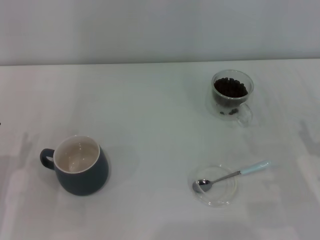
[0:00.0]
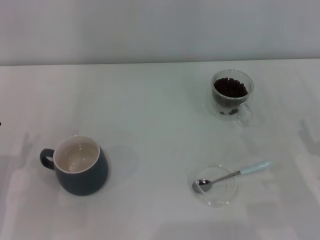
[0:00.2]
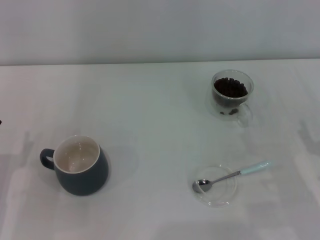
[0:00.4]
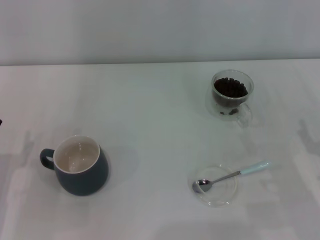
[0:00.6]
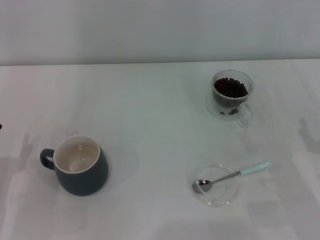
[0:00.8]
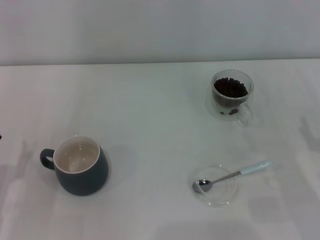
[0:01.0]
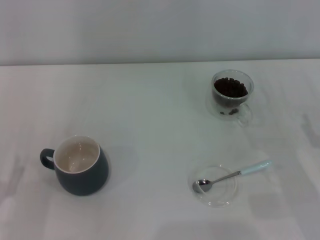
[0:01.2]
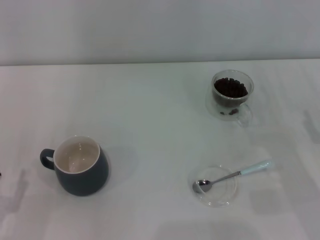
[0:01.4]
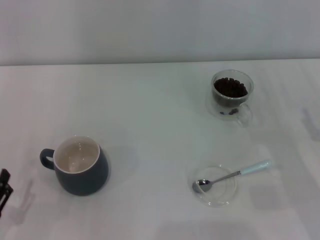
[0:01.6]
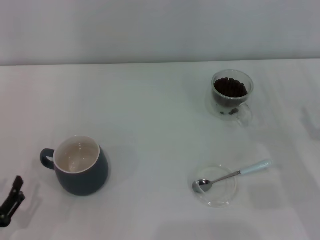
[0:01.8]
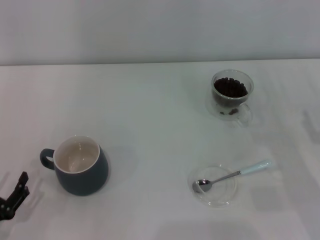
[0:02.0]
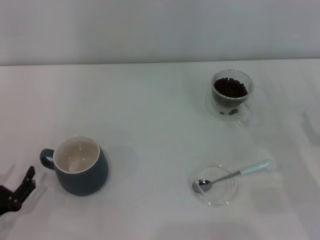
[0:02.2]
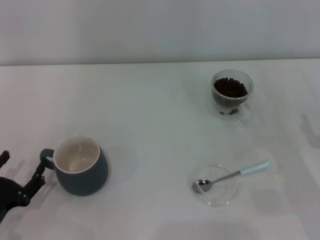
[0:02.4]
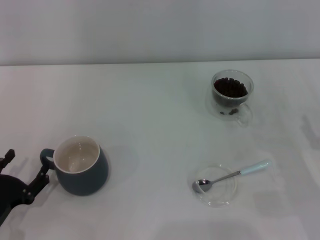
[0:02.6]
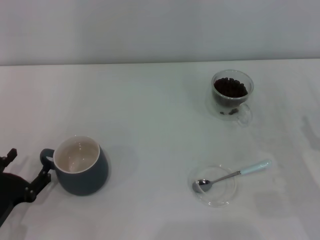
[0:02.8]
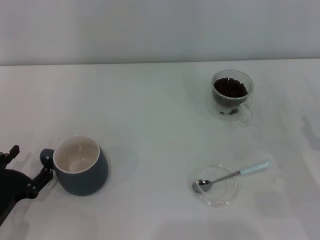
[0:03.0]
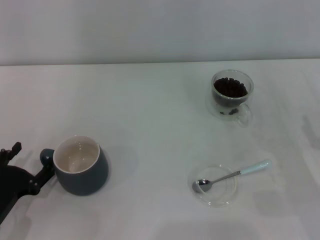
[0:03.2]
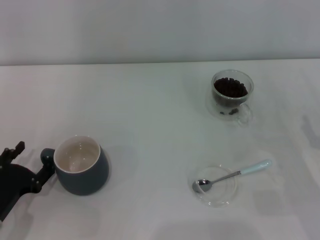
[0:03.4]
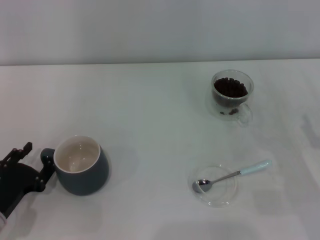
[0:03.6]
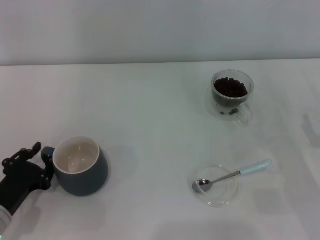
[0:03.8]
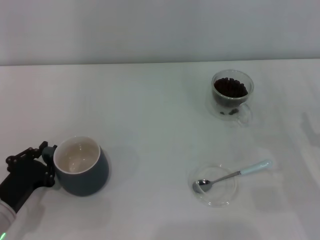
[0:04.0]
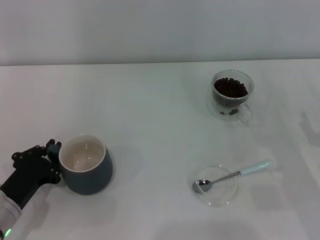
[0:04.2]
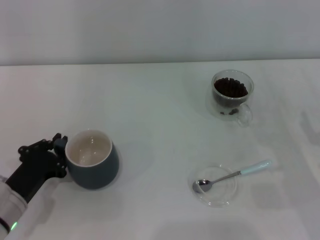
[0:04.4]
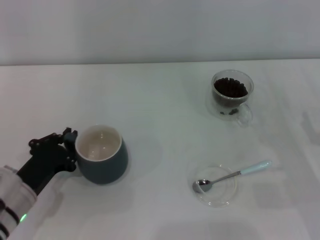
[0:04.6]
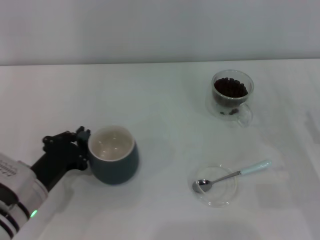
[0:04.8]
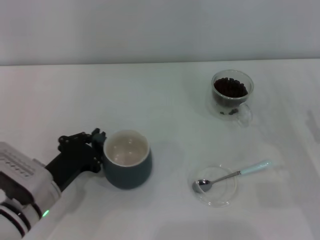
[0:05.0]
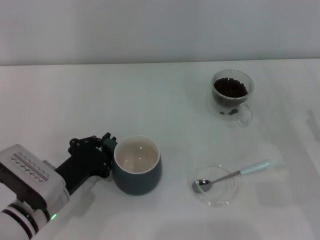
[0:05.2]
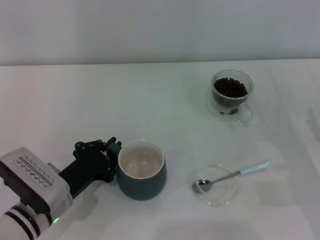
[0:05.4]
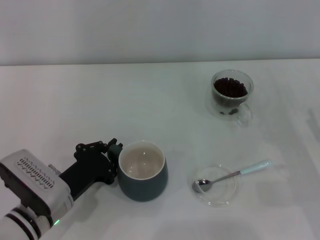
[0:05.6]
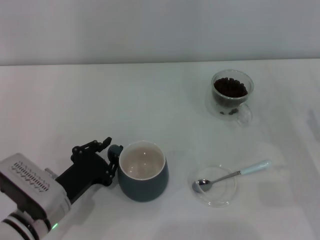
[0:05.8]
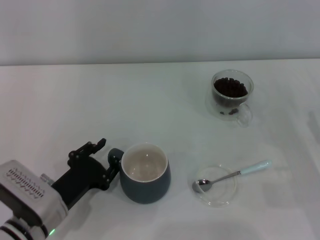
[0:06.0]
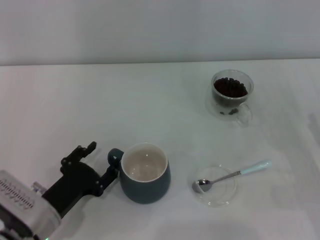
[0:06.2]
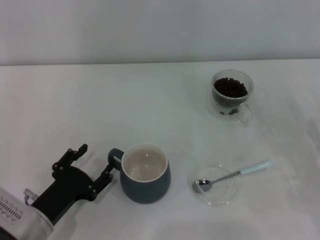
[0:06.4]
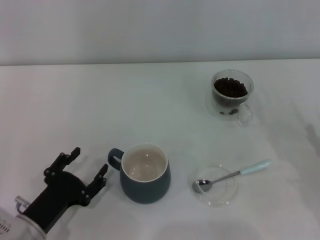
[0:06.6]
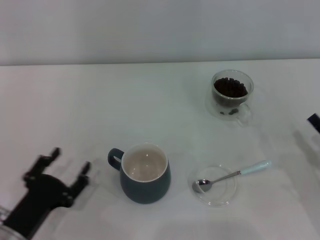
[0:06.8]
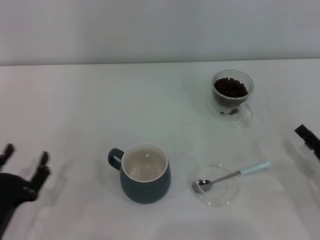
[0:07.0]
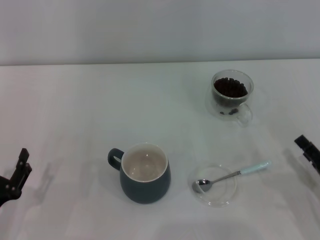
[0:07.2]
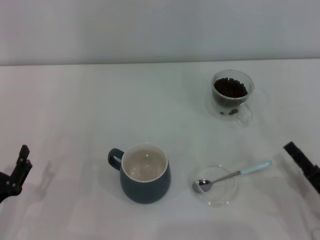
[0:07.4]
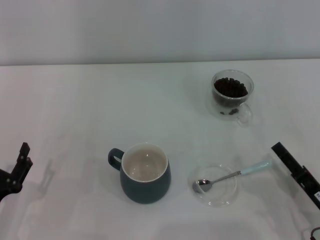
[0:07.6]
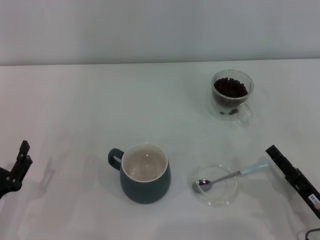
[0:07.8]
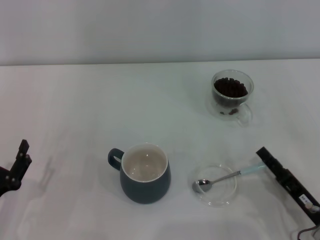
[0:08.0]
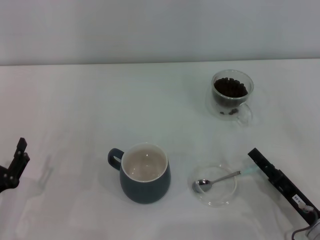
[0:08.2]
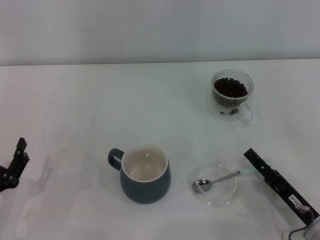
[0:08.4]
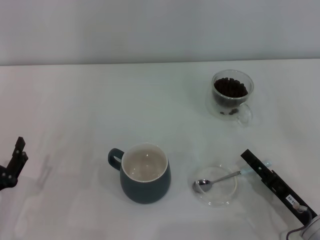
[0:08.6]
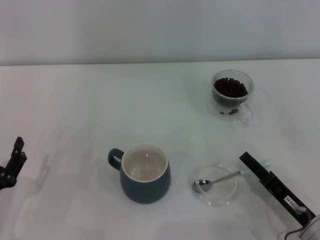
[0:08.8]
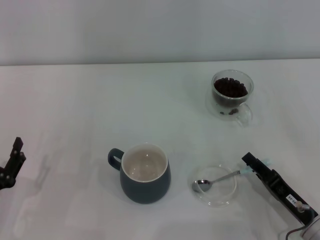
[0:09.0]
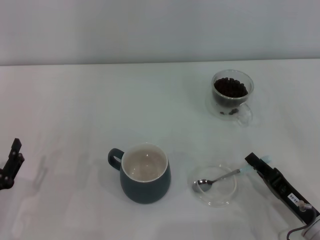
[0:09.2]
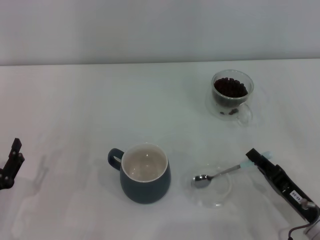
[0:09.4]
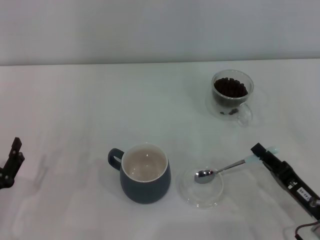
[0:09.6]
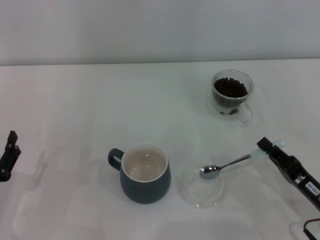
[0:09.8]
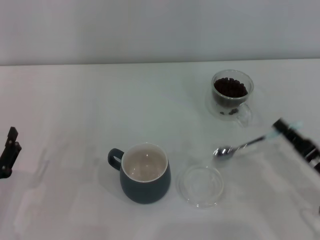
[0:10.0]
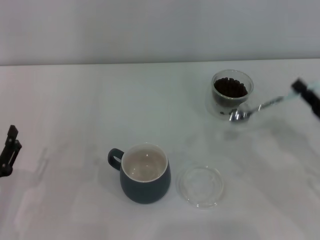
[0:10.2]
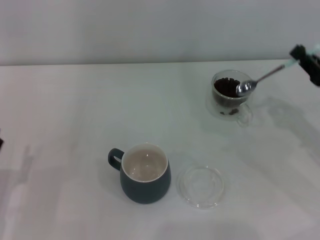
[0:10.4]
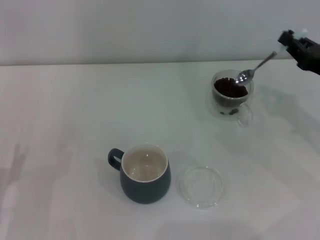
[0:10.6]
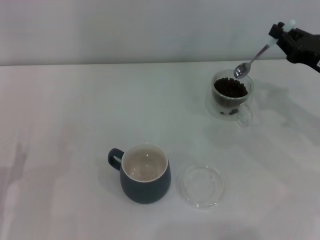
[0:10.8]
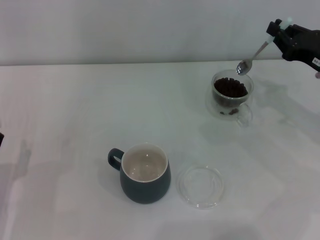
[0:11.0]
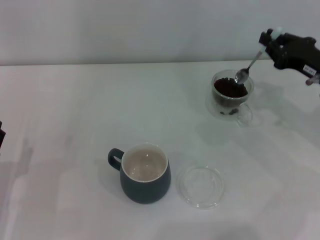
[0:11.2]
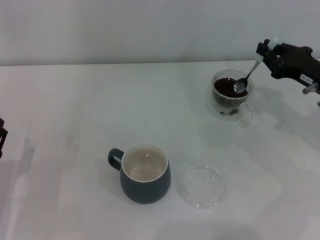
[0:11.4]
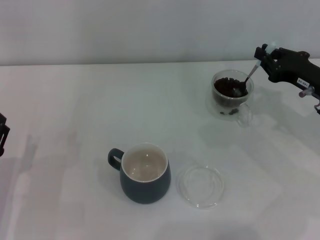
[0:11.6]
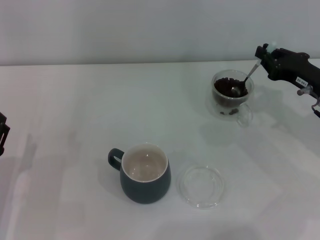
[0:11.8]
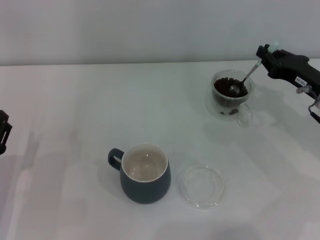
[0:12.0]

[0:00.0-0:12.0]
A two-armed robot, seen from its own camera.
Task of the whole recording: Use a blue spoon to take out the coffee beans from the glass and pour them into the gray cup.
Step, 0:00.0 to 0:06.4: Move the cup to the center of view with the left gripper.
Step, 0:06.6 to 0:09.6: Pick up the spoon with the right gripper.
0:01.6 to 0:03.0: The left gripper shifts approximately 5 cm forward.
0:03.0 to 0:04.4: The left gripper changes place by about 5 cm, and closes its fingers.
0:04.4 to 0:06.0: The left gripper is displaced to the right by about 5 cm.
0:06.0 to 0:07.6: Both grippers travel together to the left and backward, roughly 10 cm. The left gripper opens its fingers.
0:07.6 to 0:09.0: The right gripper closes its fingers.
0:09.0 to 0:10.4: The right gripper goes some 15 cm forward, upward and to the right, and closes up.
0:10.4 to 0:12.0: The right gripper goes approximately 5 cm forward.

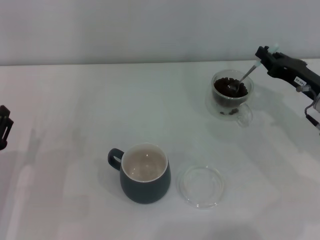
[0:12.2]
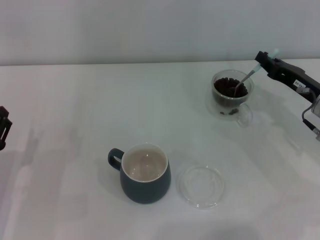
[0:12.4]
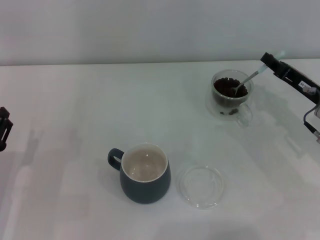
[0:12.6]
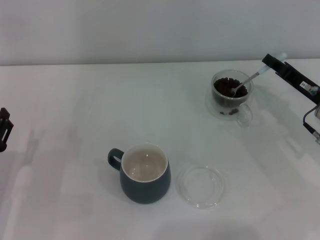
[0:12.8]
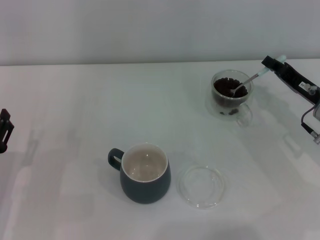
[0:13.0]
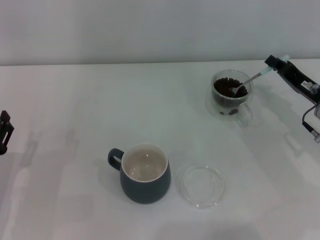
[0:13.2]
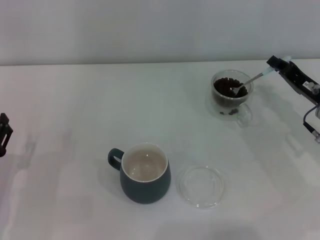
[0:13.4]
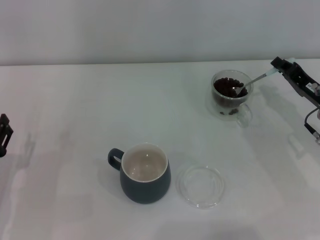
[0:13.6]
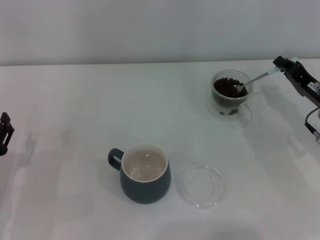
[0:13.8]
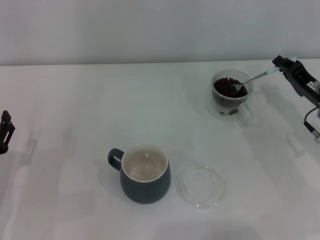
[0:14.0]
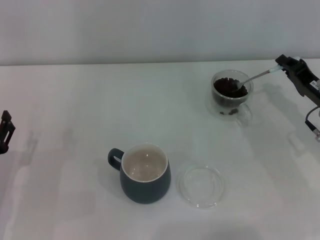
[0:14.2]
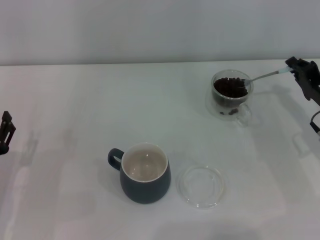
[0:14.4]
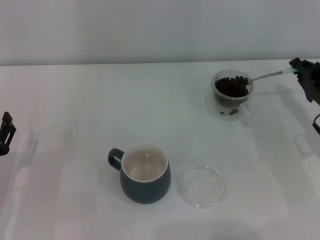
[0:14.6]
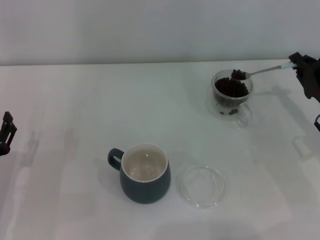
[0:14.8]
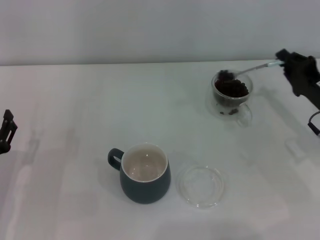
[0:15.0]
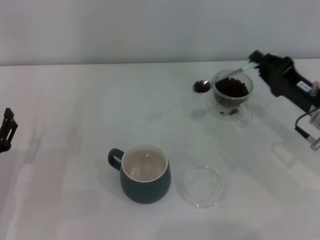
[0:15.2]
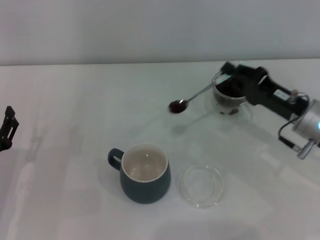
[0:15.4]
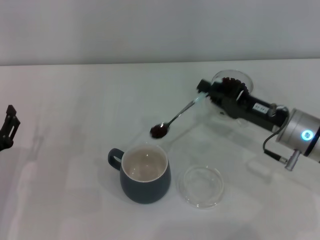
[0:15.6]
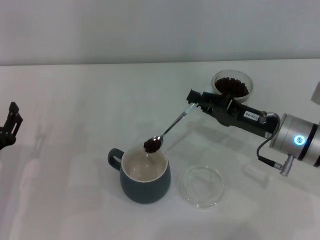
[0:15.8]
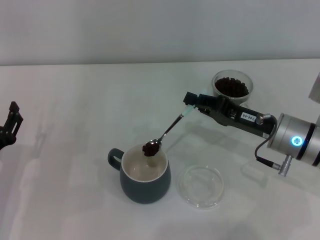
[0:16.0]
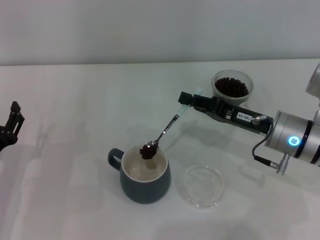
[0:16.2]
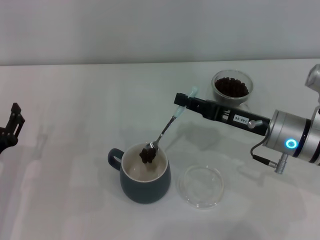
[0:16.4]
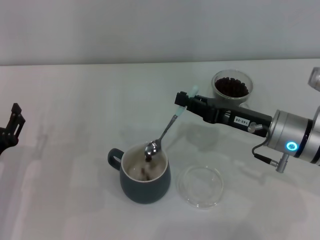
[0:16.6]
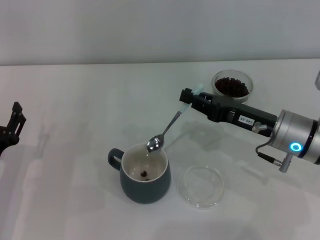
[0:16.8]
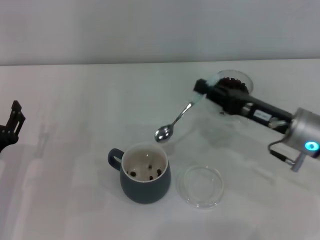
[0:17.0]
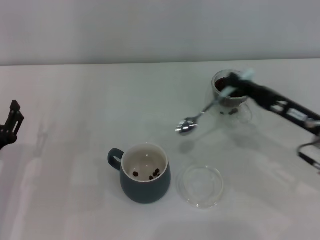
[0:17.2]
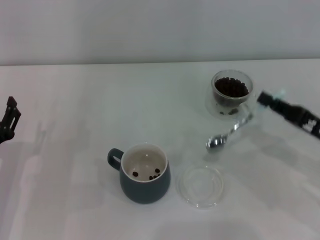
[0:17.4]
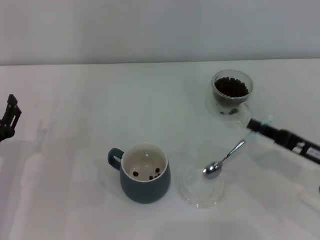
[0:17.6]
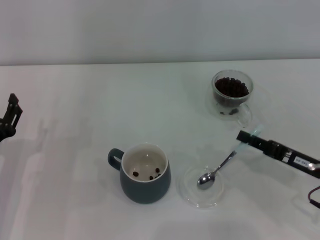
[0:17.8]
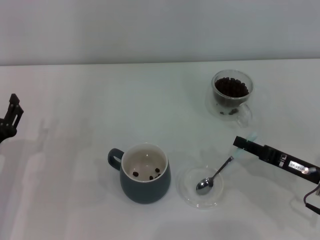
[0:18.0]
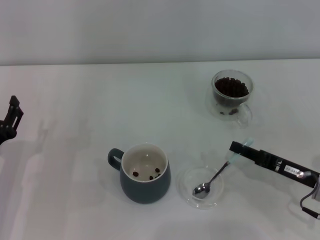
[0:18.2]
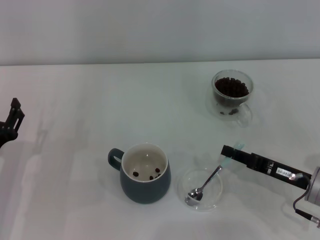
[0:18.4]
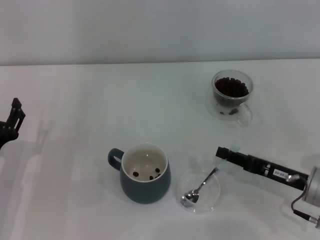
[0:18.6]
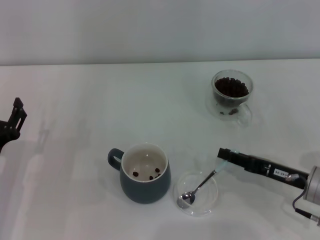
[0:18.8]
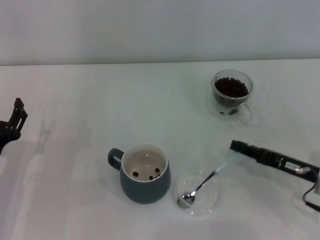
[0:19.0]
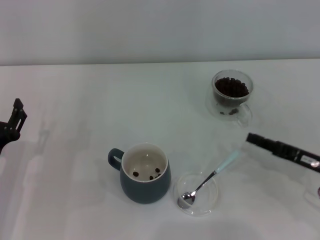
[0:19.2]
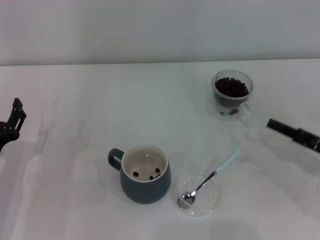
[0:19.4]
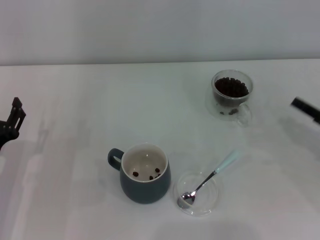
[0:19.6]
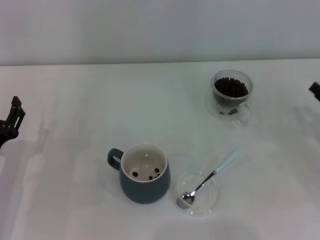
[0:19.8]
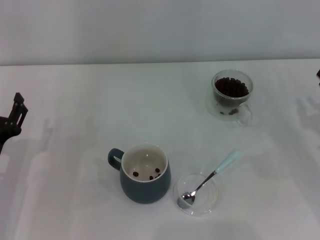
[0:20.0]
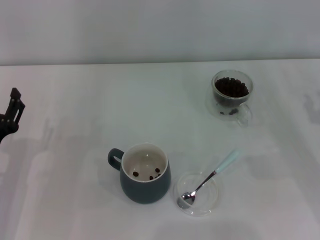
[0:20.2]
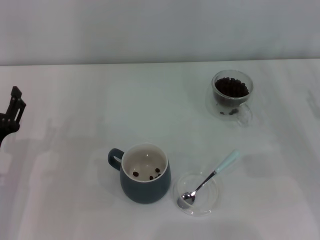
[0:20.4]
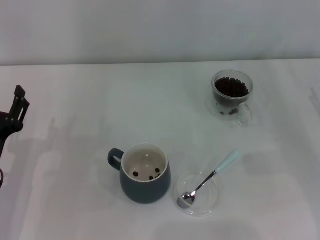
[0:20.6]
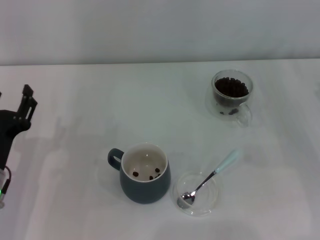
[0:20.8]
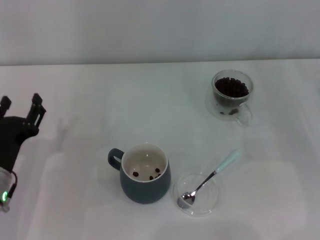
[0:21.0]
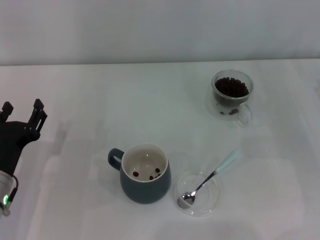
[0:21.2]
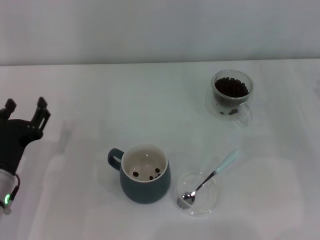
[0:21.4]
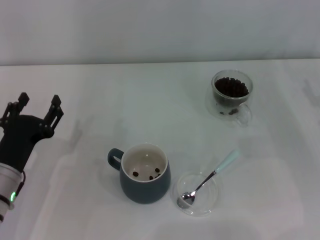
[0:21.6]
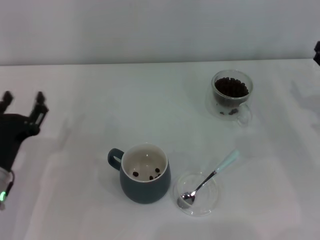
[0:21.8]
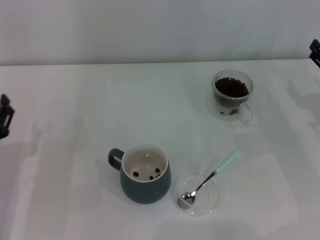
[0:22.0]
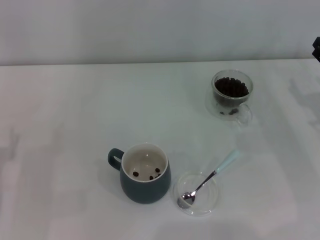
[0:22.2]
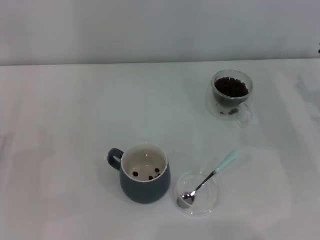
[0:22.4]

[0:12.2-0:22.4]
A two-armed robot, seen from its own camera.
Task of the whole recording: Use a blue spoon to take out the coffee beans from the glass and pour them into the gray cup.
Step, 0:12.2 to 0:16.6: Scoop a spoonful of beans into the cup with the right gripper.
Step, 0:16.8 to 0:19.0: Place the spoon back in its original place with the right gripper.
0:15.2 to 0:16.6: The right gripper goes about 5 cm to the left.
0:16.6 to 0:18.0: The right gripper is displaced to the right, backward and downward by roughly 10 cm.
0:18.0 to 0:19.4: The right gripper travels to the right by roughly 5 cm.
0:19.4 to 0:21.0: The right gripper ends up roughly 5 cm from where it was, and opens.
0:21.0 to 0:22.4: The left gripper heads to the left, covering about 5 cm.
